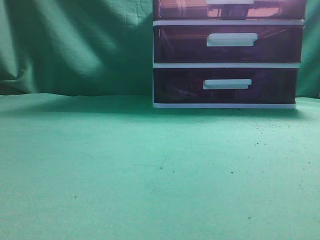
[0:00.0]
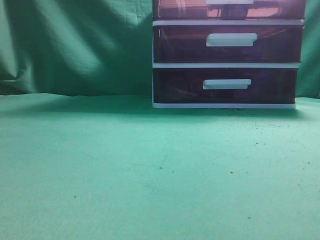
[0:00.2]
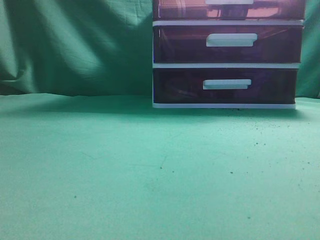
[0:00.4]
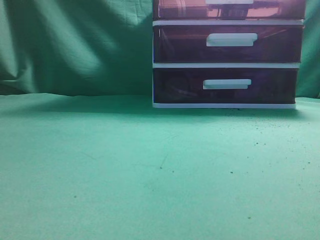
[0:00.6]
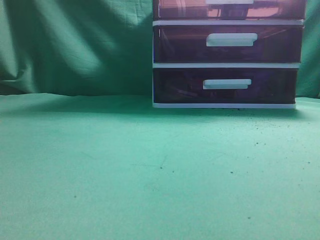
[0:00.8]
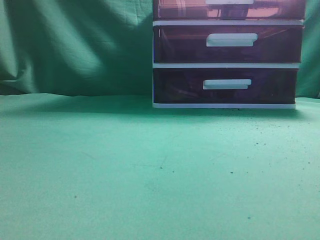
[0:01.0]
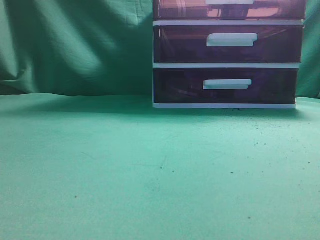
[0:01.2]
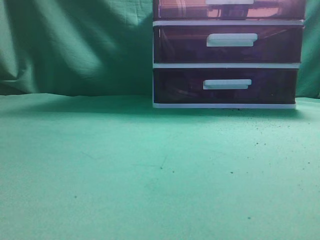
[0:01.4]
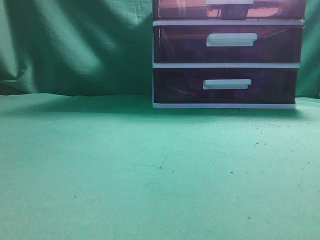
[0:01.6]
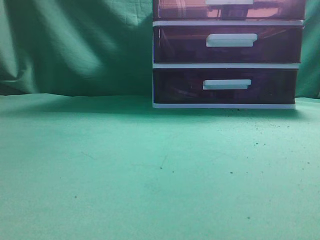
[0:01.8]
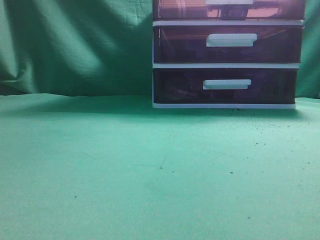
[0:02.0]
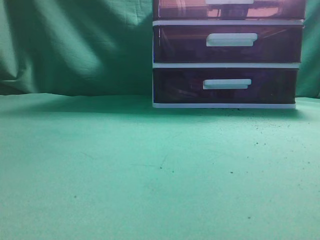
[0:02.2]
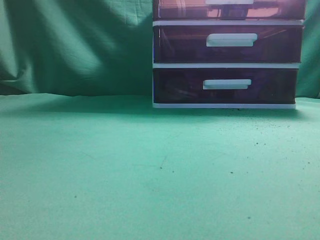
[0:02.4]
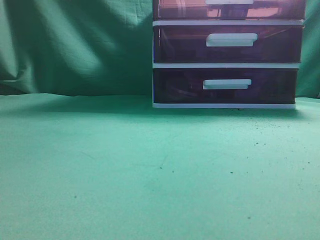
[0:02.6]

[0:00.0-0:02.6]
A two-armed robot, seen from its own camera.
Task of the whole recording: place the water bottle into the drawer.
0:00.0 to 0:01.2: Both grippers stay about where they are.
